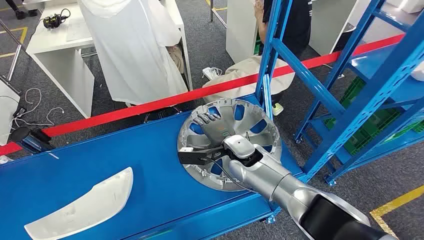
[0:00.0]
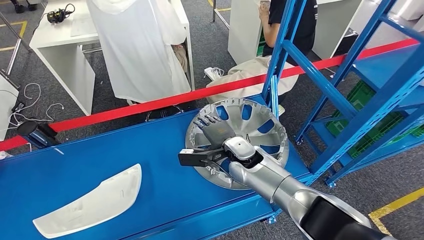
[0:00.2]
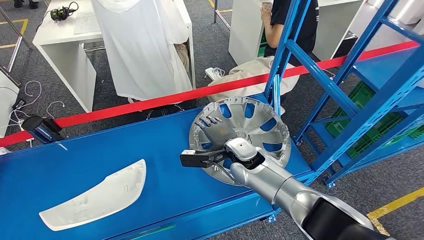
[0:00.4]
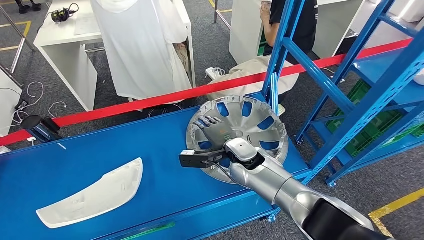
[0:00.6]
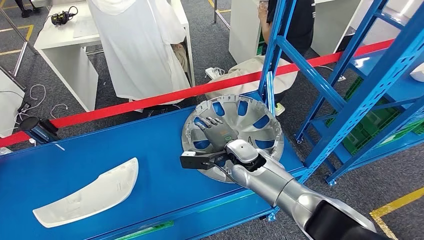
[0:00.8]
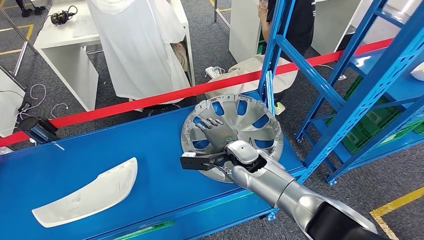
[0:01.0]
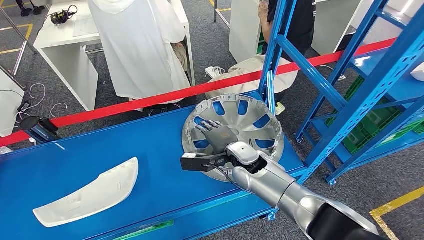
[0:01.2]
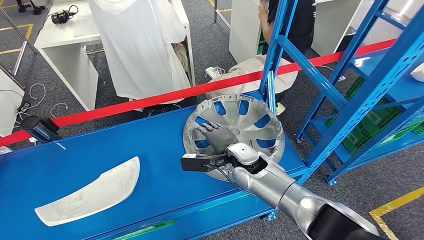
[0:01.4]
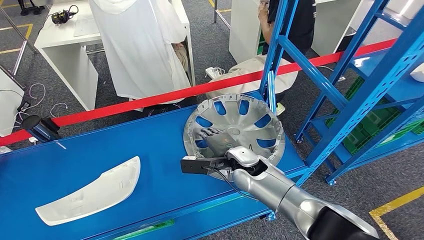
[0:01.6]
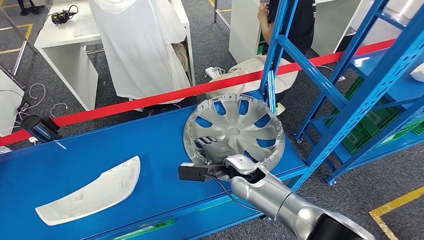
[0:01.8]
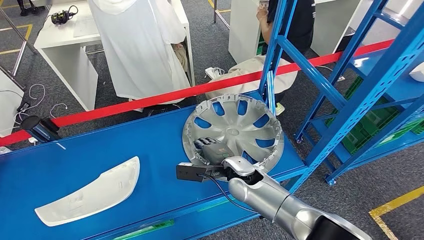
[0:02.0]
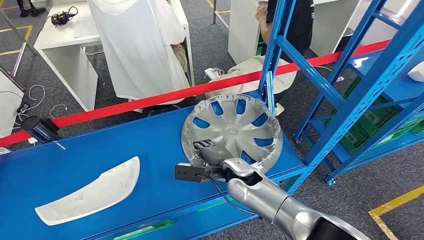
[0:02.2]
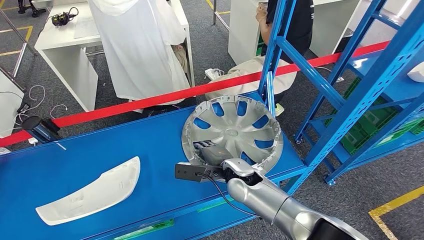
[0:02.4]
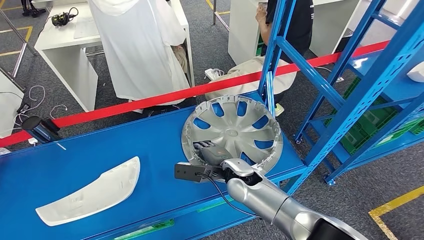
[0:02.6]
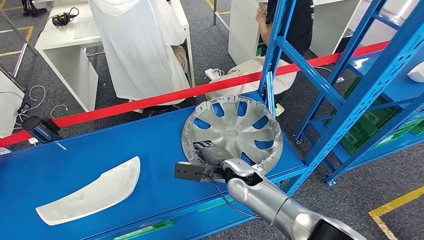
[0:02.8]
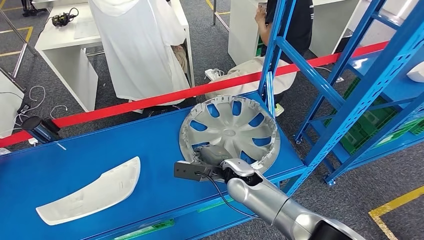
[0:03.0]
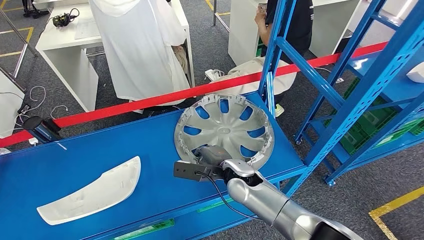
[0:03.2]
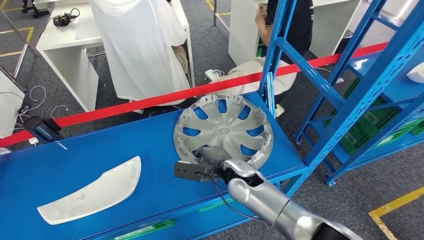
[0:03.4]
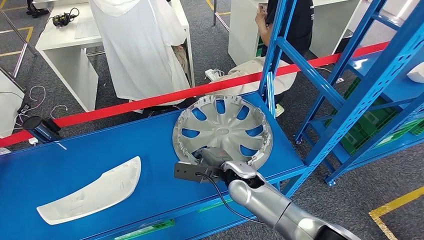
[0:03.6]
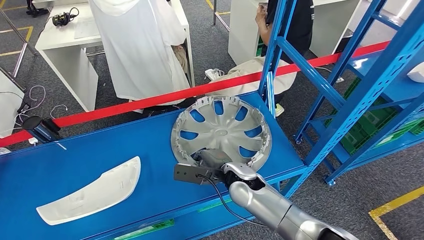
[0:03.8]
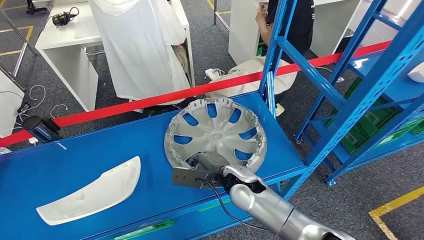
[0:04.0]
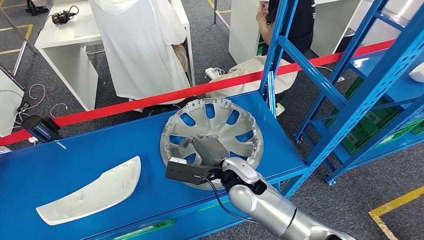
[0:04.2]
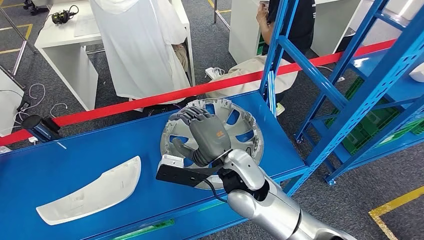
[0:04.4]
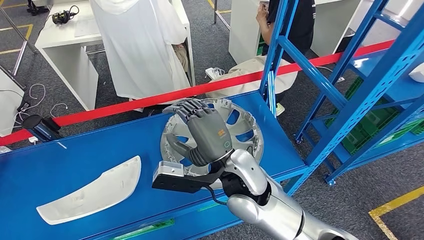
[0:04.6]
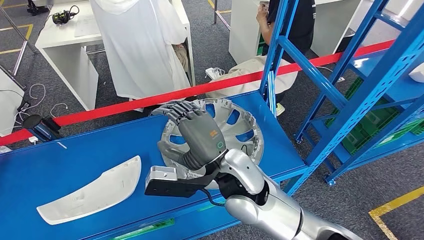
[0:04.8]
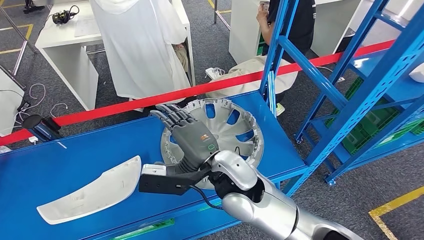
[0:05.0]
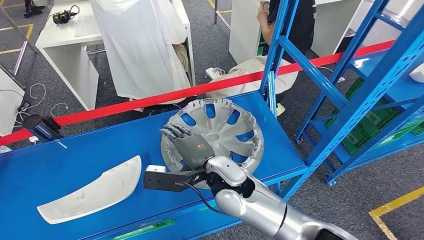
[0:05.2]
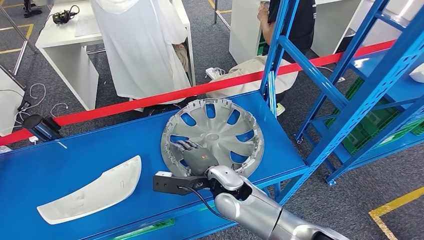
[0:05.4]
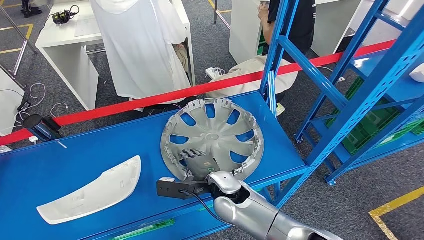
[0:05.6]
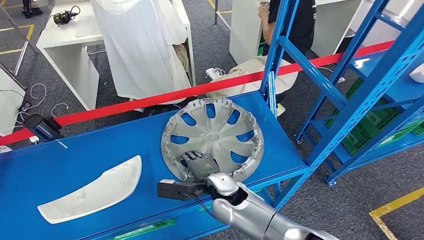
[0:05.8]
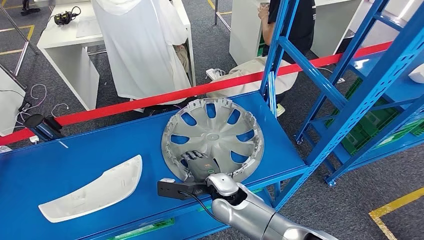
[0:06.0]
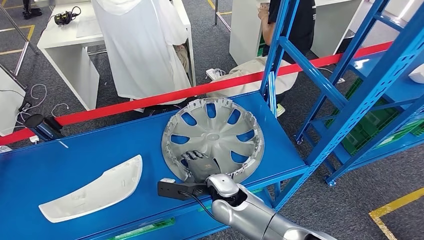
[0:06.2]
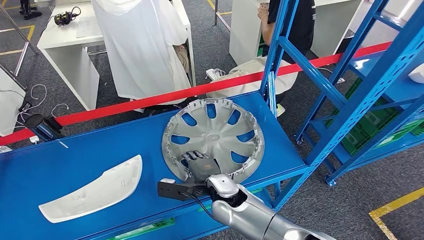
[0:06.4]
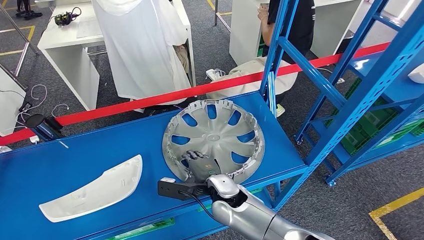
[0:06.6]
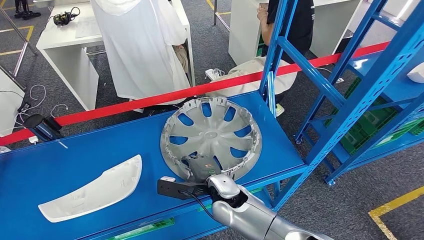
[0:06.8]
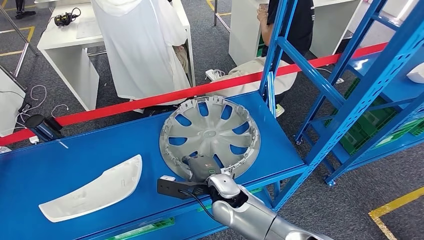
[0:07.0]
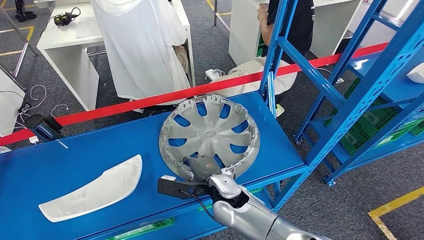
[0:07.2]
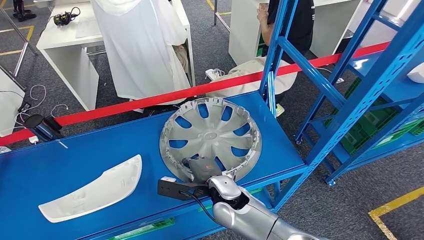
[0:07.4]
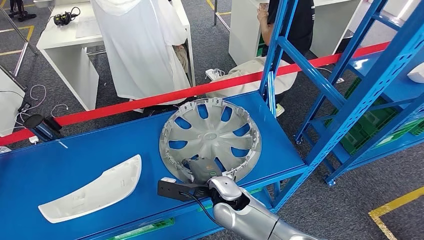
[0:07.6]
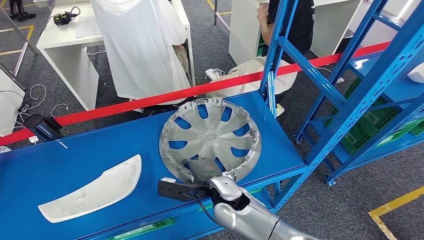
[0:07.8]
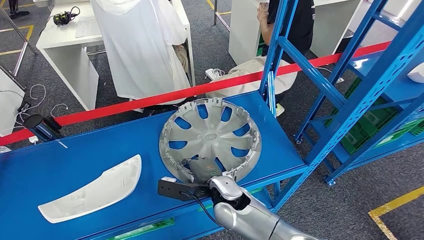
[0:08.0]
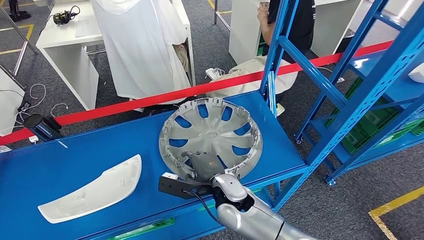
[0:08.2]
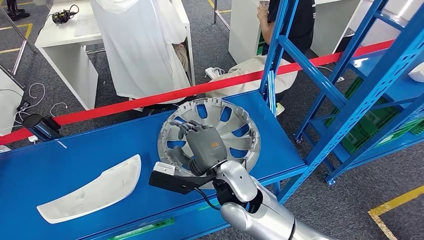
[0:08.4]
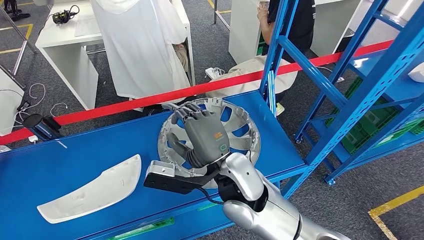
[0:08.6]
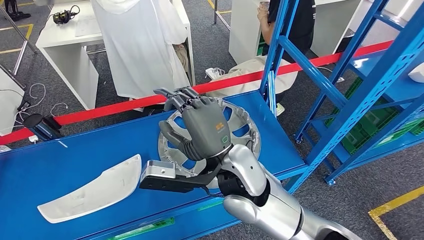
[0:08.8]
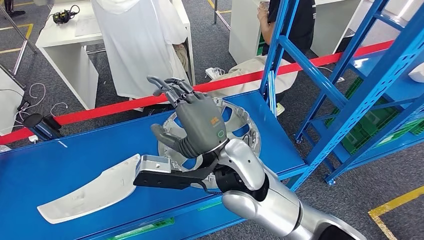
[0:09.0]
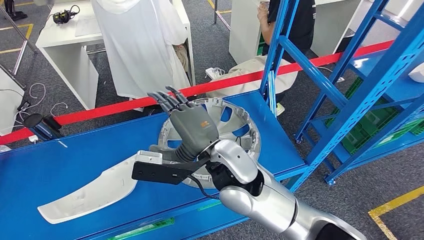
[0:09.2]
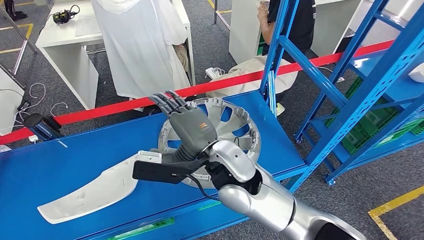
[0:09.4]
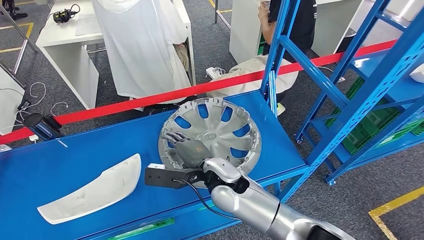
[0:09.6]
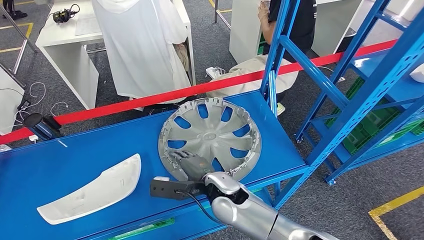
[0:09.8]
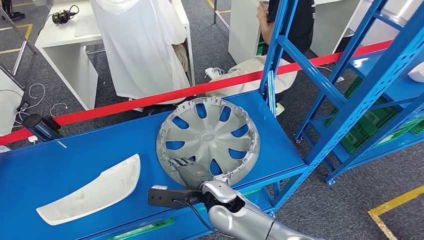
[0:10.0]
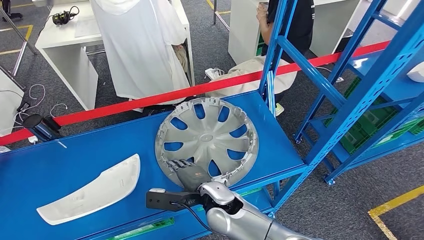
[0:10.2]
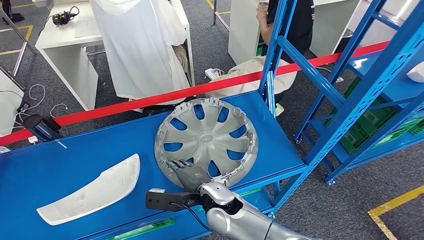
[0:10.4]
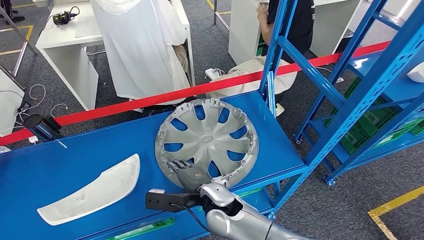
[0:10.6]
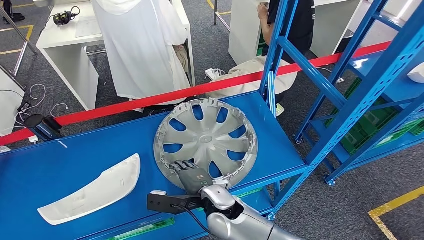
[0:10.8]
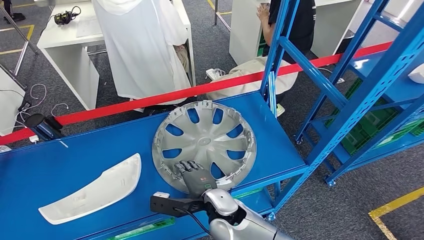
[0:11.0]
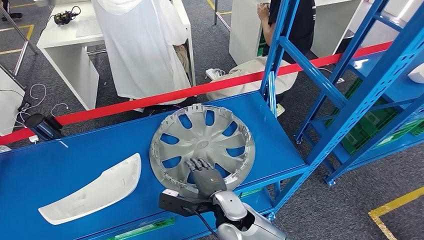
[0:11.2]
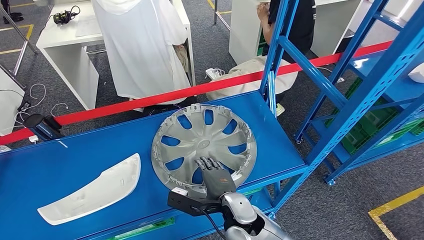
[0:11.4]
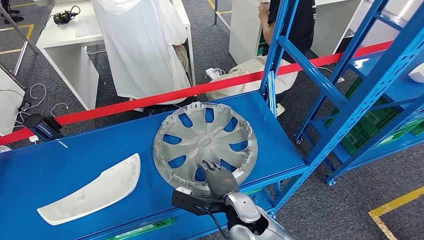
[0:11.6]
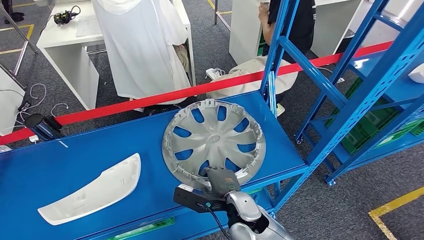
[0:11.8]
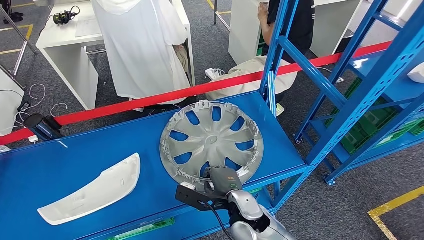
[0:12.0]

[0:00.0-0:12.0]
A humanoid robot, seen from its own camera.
0:04.4 to 0:06.0: The right hand heads downward, covering roughly 10 cm.
0:06.0 to 0:07.6: The hands move only a little.
0:07.6 to 0:09.0: The right hand is displaced upward by about 20 cm.
0:10.4 to 0:12.0: The right hand is displaced to the right by approximately 5 cm.

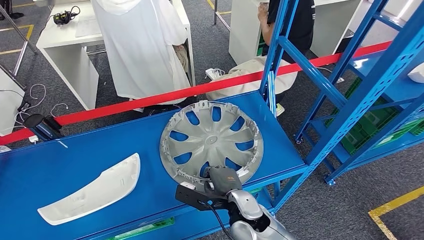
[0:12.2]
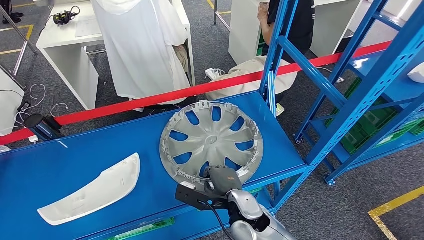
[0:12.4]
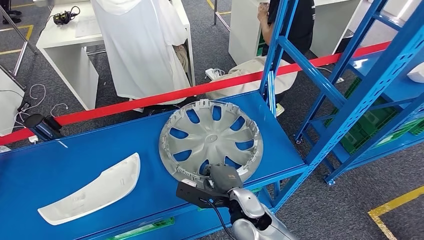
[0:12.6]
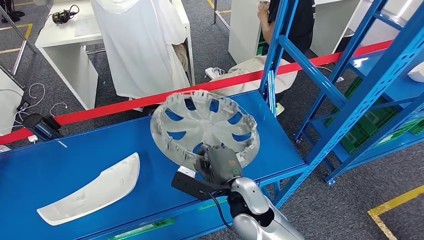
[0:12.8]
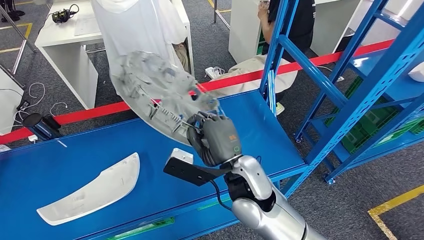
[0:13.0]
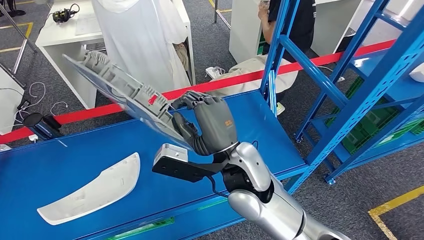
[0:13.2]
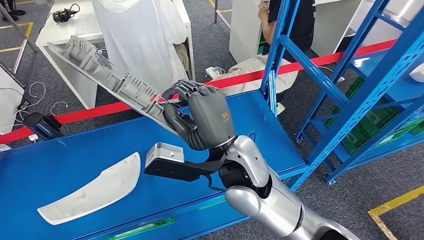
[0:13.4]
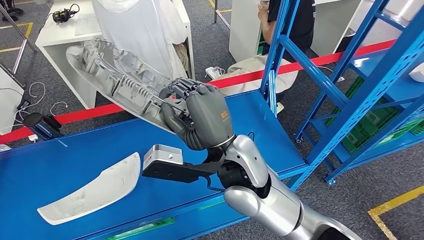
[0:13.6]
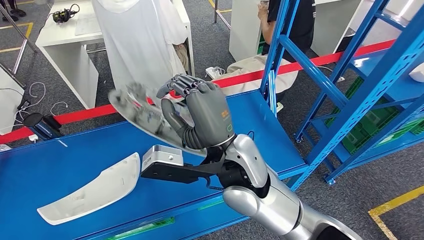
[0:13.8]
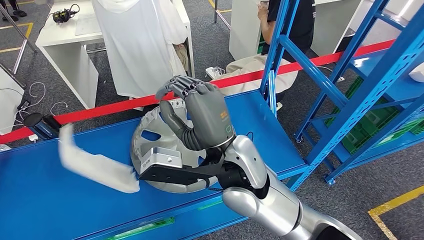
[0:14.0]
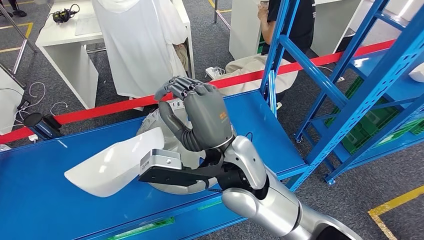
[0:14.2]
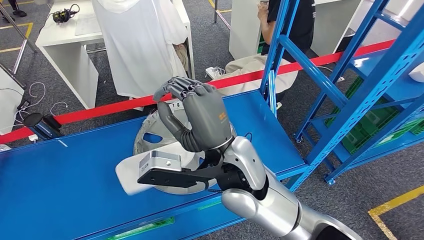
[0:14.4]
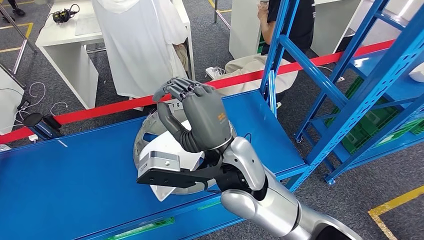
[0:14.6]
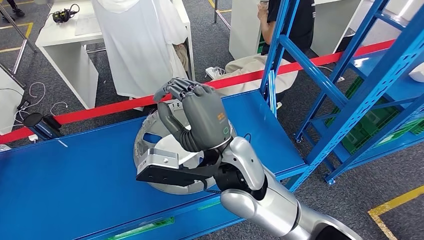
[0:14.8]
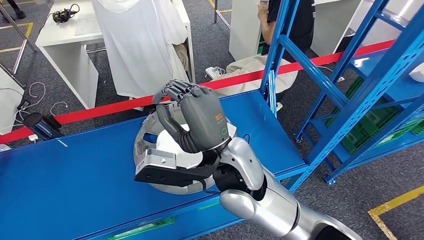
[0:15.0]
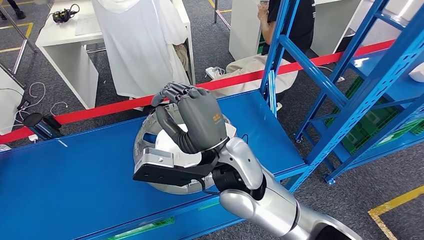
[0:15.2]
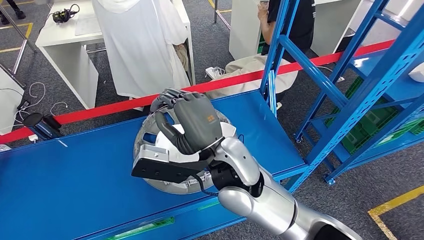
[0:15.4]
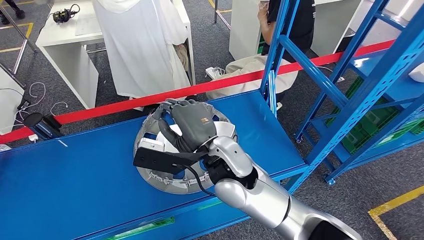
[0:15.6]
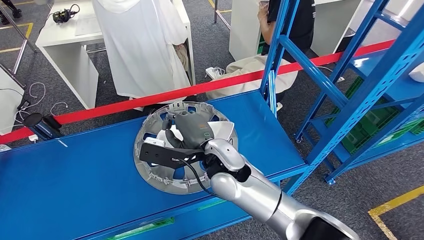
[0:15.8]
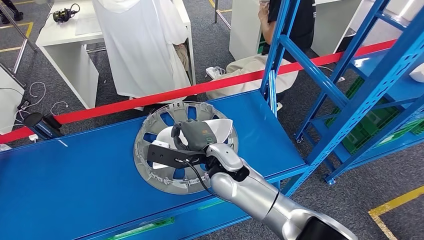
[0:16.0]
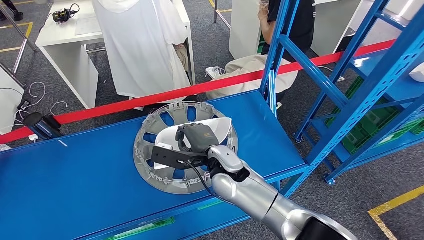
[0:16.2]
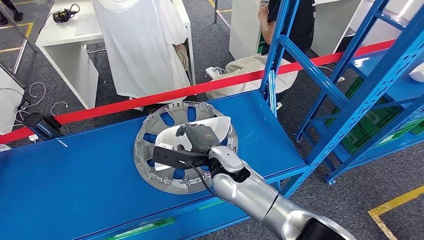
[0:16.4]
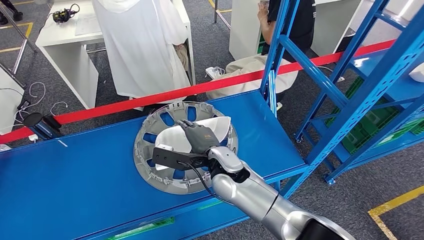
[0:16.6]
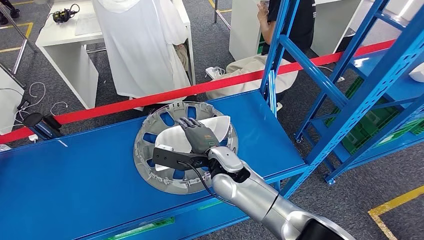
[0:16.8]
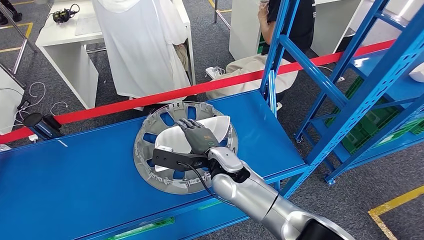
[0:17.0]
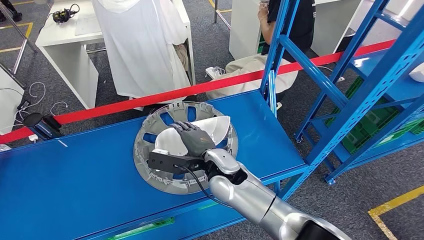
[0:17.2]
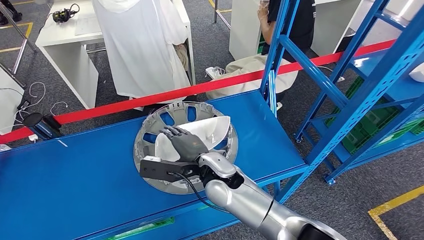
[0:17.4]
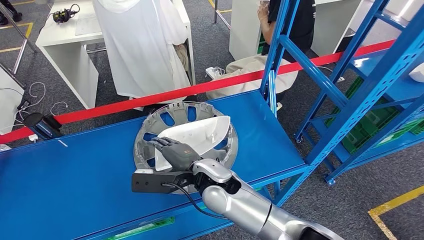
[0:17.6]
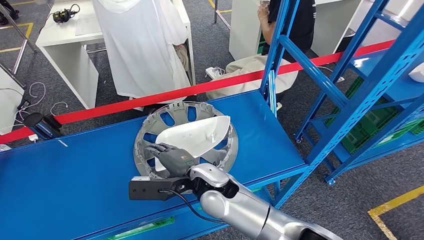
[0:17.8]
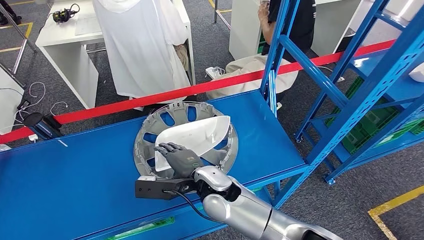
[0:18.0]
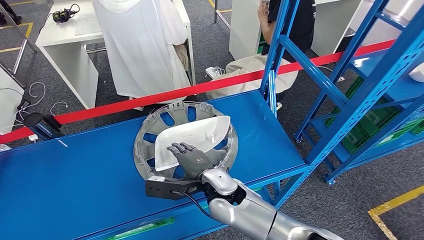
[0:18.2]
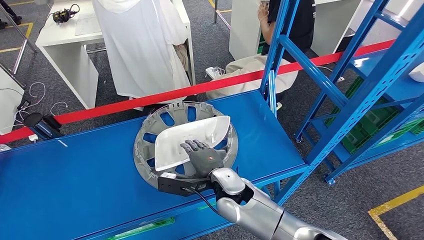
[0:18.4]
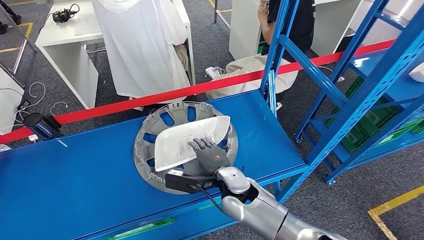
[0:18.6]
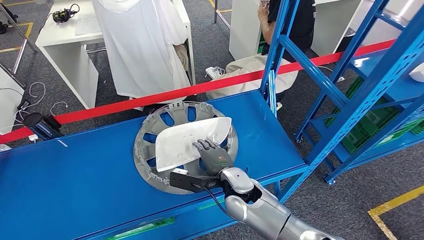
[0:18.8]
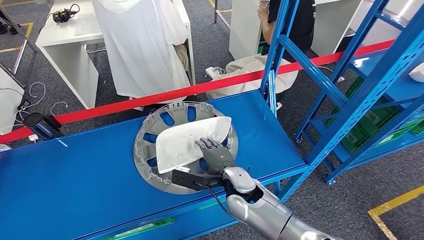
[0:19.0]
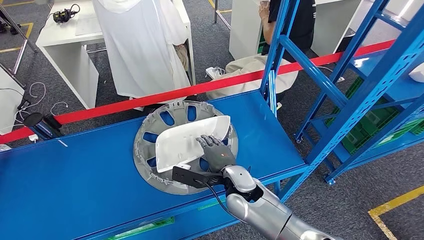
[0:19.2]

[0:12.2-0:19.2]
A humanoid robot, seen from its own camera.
0:13.6 to 0:15.0: The two hands keep their place.
0:15.0 to 0:16.4: The right hand shifts about 15 cm downward.
0:16.4 to 0:17.8: The right hand moves approximately 5 cm.
0:17.8 to 0:19.2: The right hand heads to the right and downward, covering some 10 cm.
